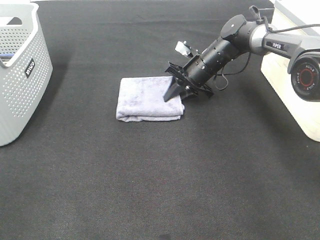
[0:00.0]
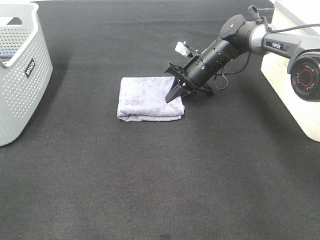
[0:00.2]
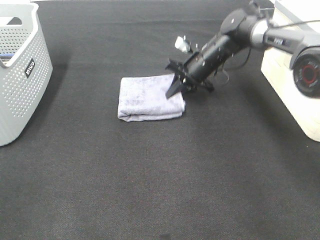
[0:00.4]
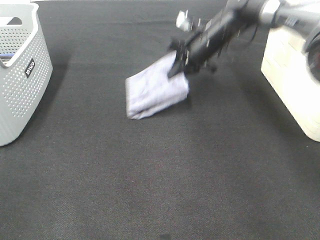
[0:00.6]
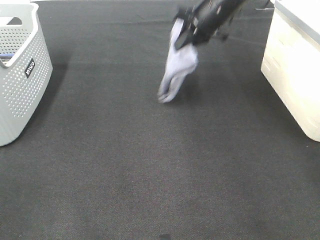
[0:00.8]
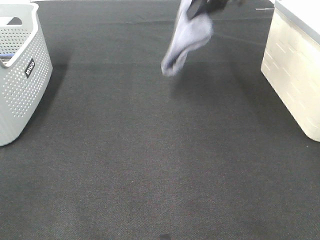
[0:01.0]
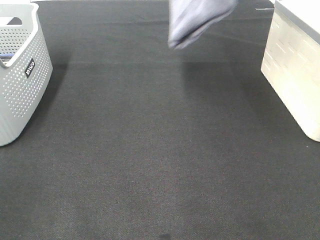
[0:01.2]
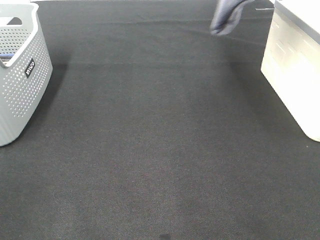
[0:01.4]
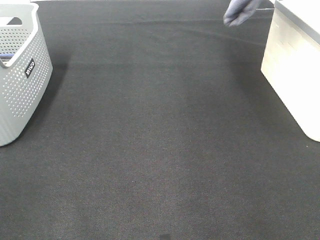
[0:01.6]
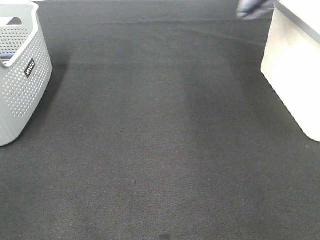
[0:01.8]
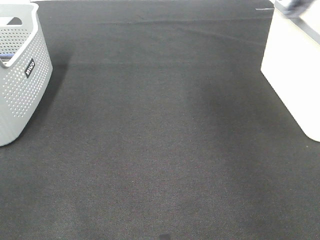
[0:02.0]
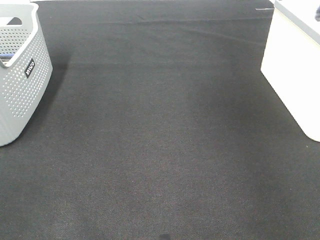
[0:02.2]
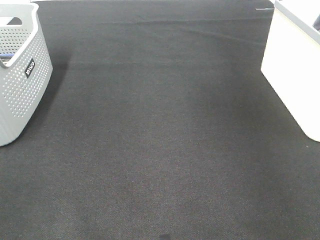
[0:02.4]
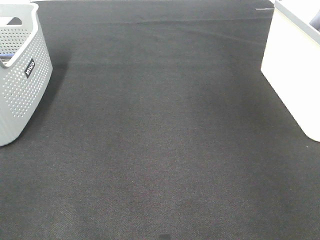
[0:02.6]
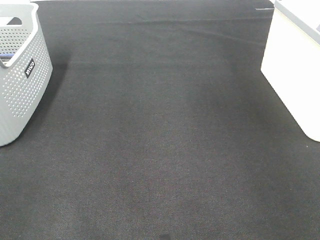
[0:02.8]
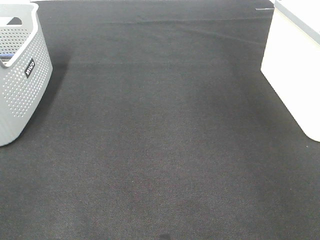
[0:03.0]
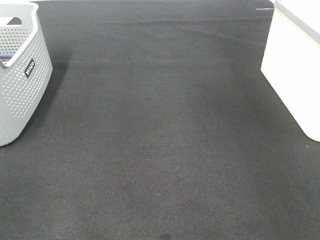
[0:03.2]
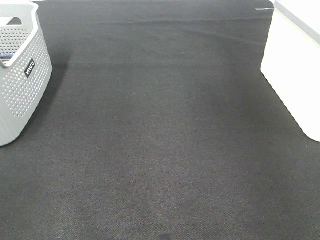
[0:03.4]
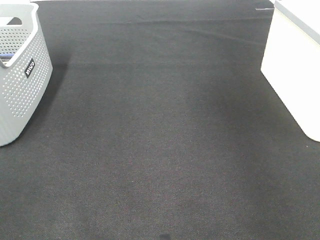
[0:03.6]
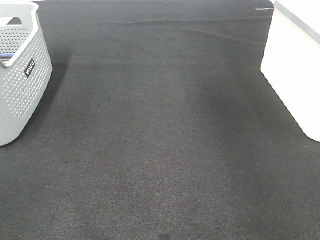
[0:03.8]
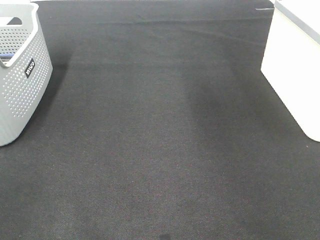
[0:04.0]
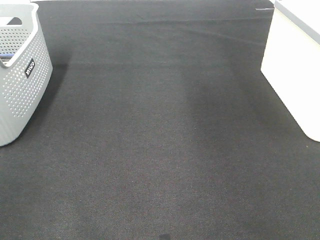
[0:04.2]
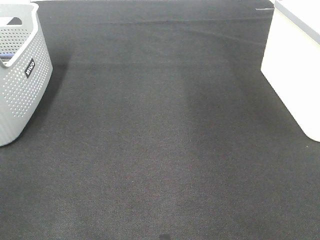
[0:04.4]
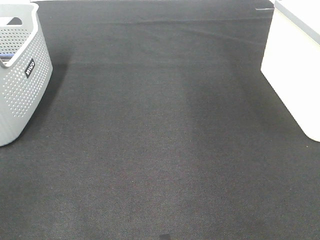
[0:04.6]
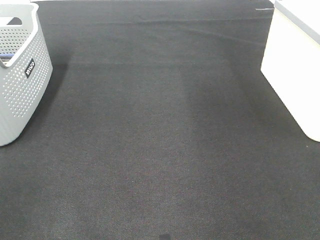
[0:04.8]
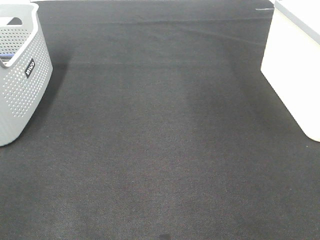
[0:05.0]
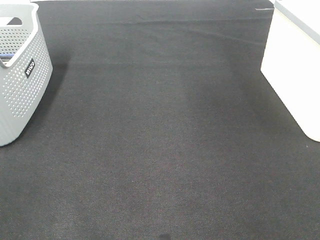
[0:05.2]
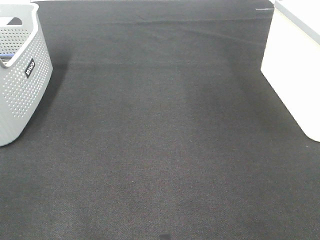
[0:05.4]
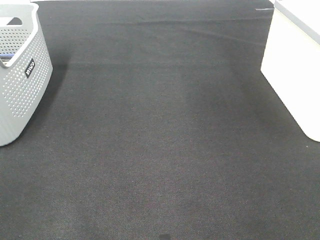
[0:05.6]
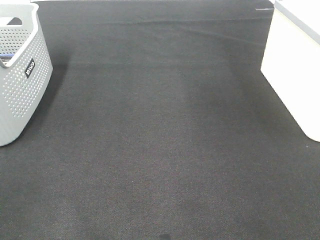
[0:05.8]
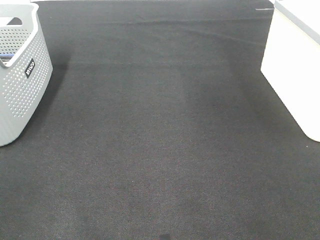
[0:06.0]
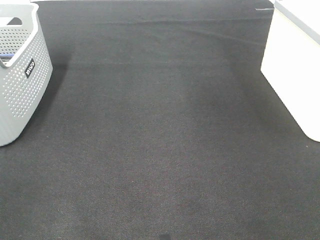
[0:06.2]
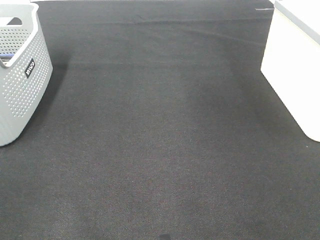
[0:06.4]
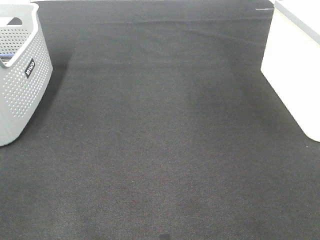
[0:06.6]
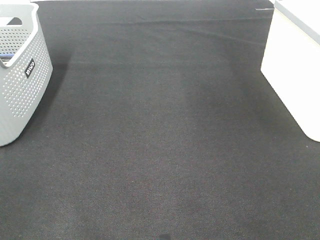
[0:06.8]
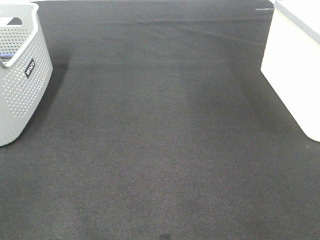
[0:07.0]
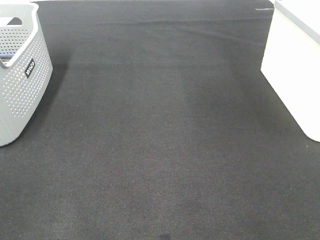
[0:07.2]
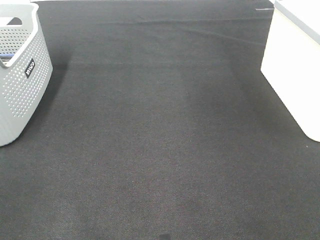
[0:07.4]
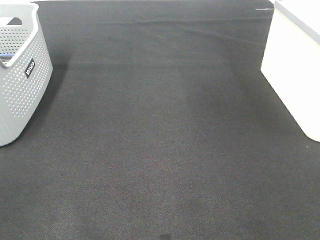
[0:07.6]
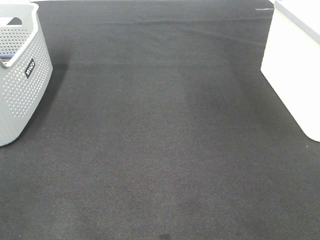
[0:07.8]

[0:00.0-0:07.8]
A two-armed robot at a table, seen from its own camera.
Step, 0.6 to 3.2 s: Right hand: place the grey towel in right basket.
0.0 to 1.6 s: The right gripper shifts some 35 cm upward.
1.6 to 3.2 s: The right gripper shifts roughly 20 cm to the right and downward, and opens.
6.2 to 7.8 s: Neither gripper changes place.

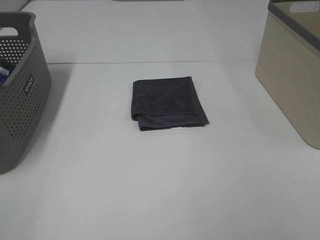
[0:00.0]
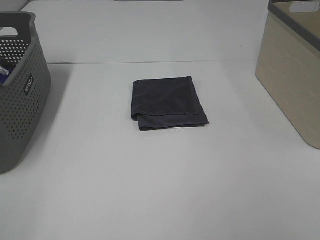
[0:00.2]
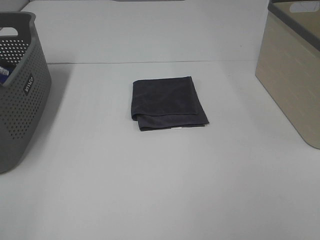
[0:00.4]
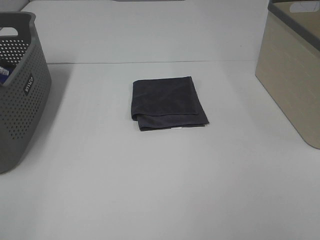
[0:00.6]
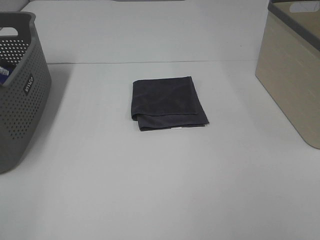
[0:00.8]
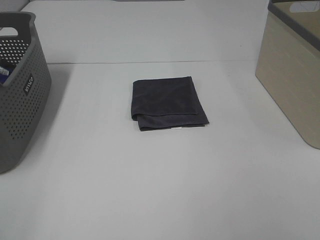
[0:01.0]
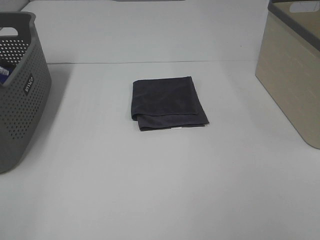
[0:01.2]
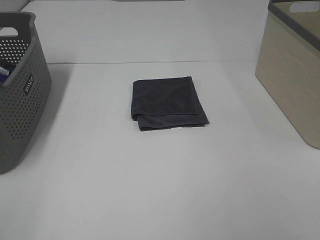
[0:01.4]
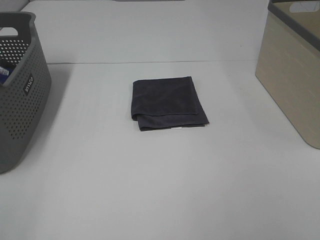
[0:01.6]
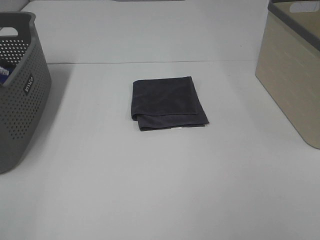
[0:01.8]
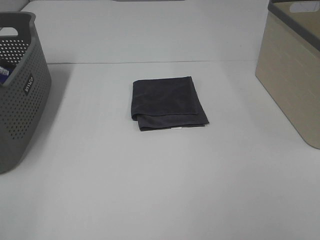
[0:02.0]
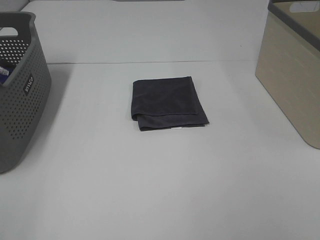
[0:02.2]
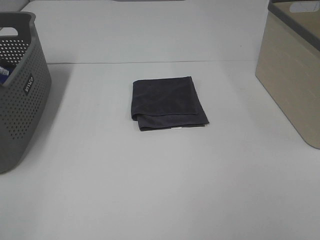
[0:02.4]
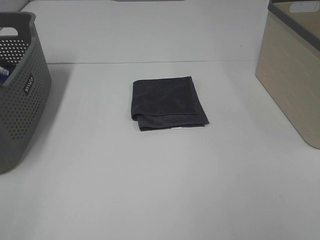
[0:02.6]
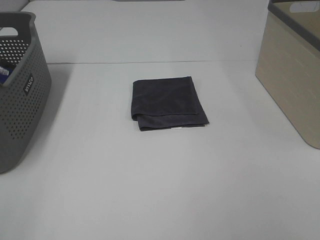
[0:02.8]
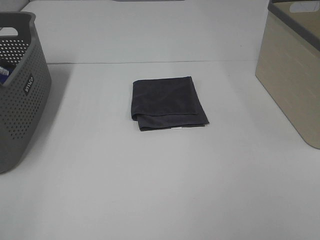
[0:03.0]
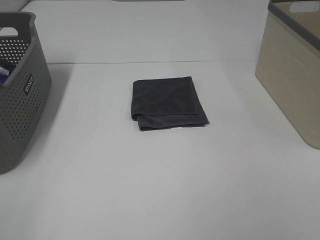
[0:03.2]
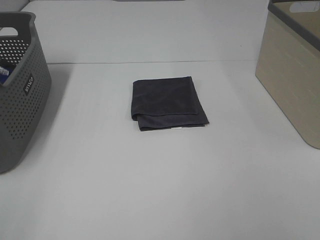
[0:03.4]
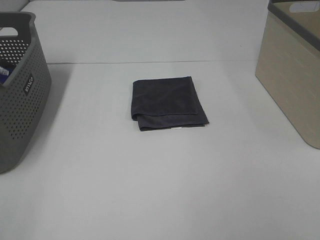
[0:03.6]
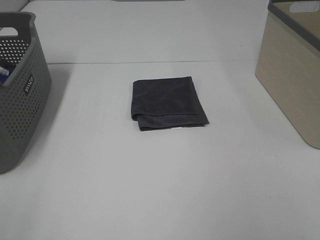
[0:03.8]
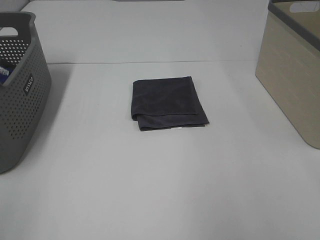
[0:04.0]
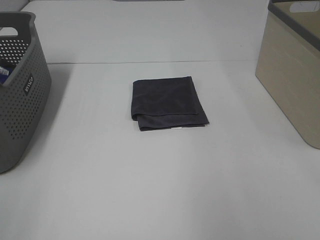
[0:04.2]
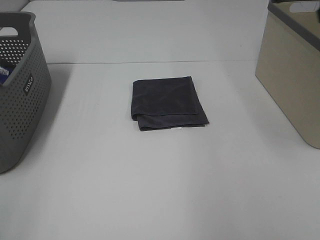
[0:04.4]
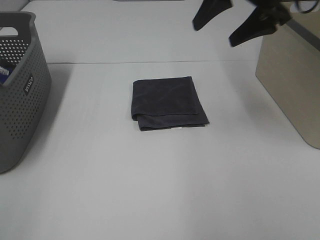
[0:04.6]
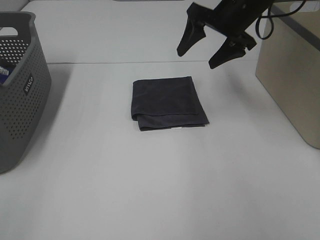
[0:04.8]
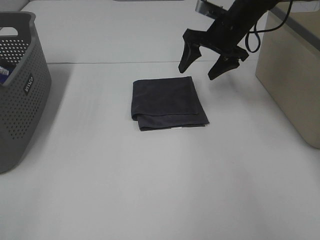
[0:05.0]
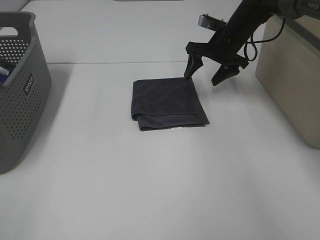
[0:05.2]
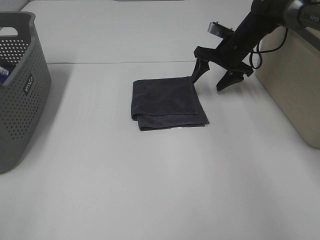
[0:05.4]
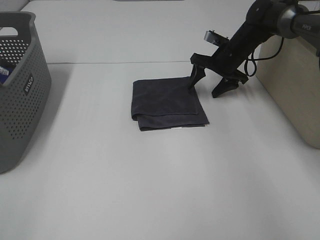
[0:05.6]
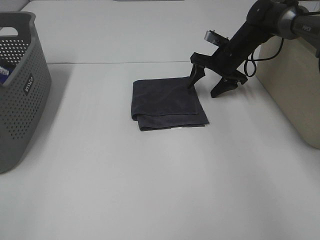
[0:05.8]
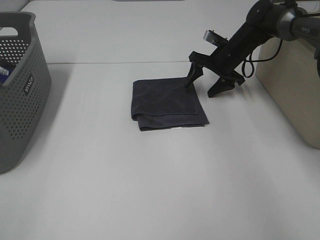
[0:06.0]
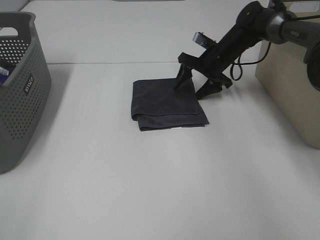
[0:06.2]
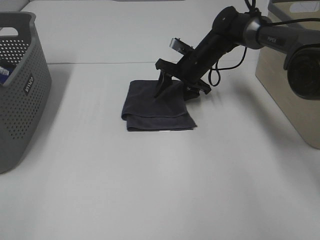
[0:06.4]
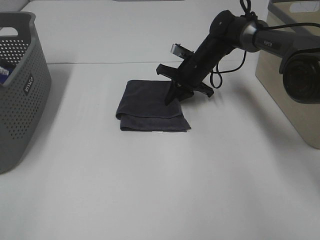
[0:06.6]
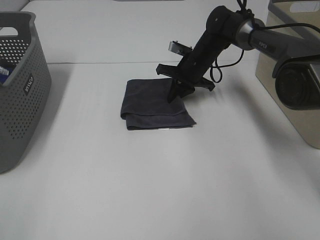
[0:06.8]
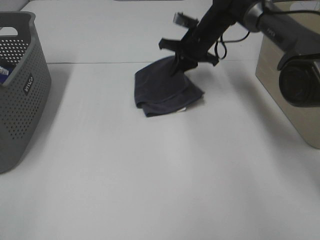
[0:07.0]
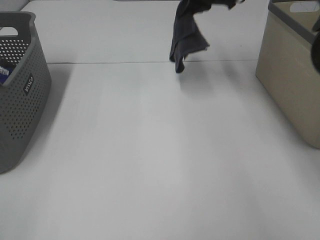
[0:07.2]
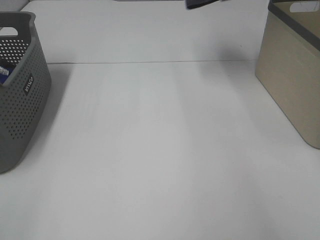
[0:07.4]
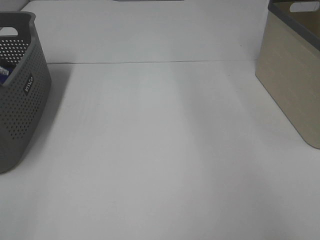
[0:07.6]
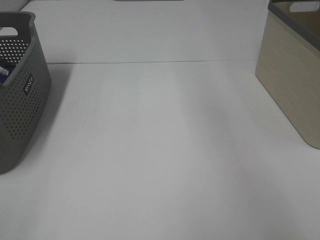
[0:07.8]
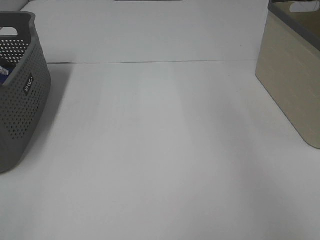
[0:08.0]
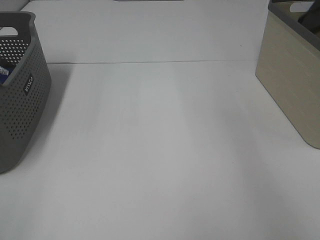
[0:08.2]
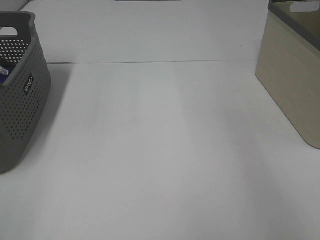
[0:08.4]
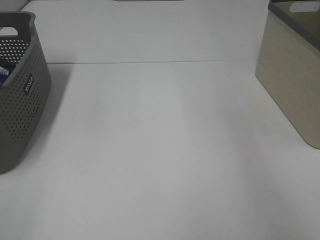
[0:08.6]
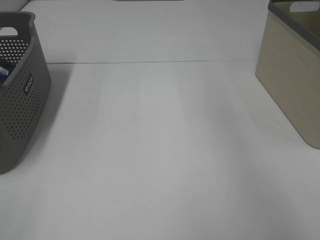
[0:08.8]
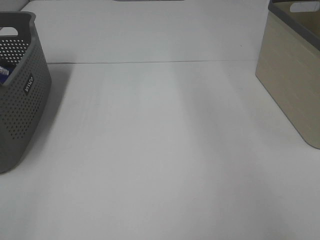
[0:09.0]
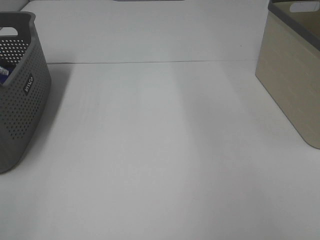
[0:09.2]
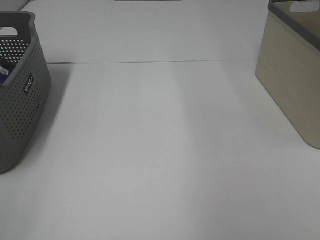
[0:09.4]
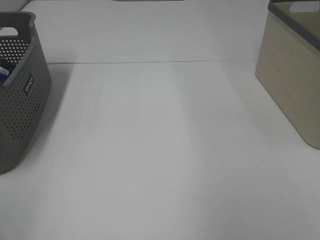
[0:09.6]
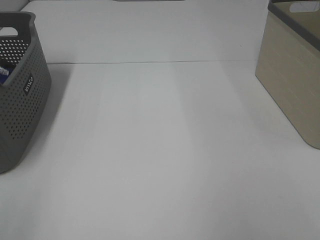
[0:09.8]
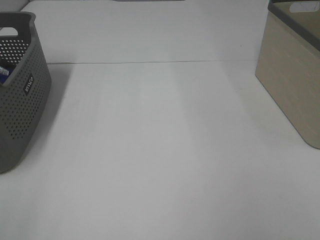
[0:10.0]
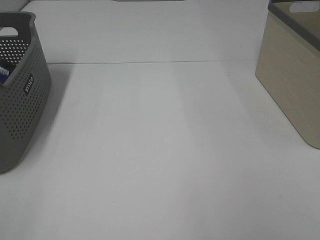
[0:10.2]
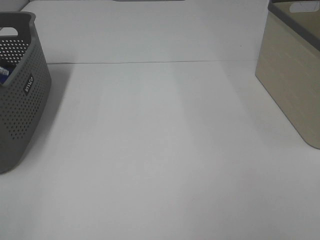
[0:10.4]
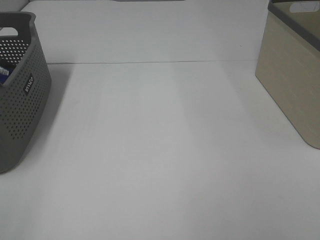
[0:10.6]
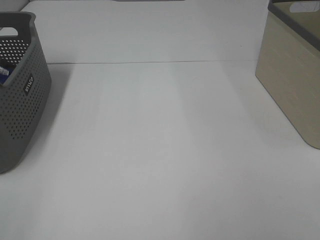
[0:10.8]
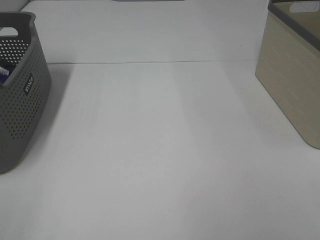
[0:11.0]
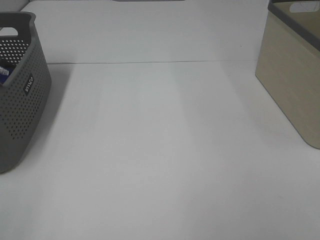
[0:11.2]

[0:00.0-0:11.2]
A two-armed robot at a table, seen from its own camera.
Step, 0.0 to 6.4 s: Right hand: grab the folded grey towel.
Step, 6.6 to 8.4 s: Right hand: place the grey towel in right basket.
0.0 to 3.2 s: Both grippers stay about where they are.
3.2 to 4.8 s: The right gripper heads forward, covering about 40 cm.
4.8 to 6.4 s: The right gripper goes about 15 cm downward.
6.4 to 8.0 s: The right gripper travels upward and to the right by some 40 cm, and closes up.

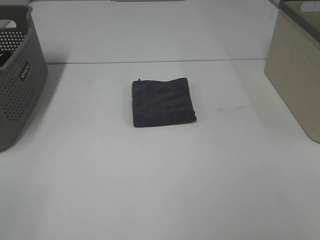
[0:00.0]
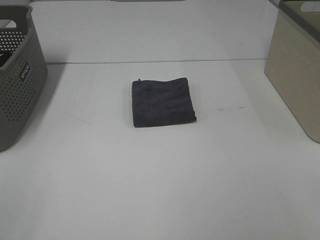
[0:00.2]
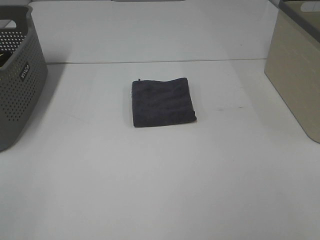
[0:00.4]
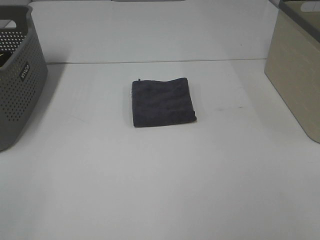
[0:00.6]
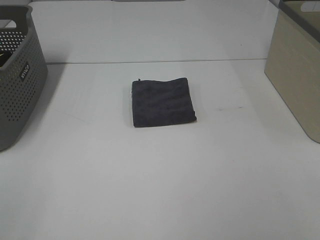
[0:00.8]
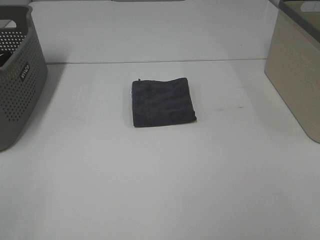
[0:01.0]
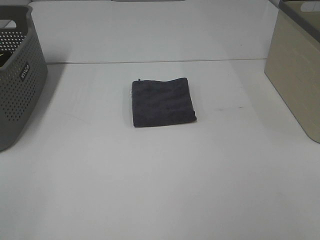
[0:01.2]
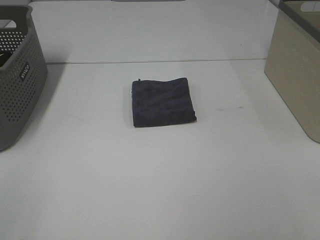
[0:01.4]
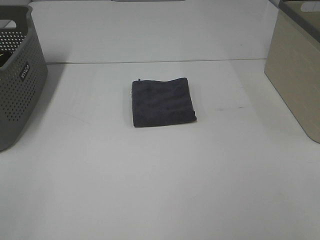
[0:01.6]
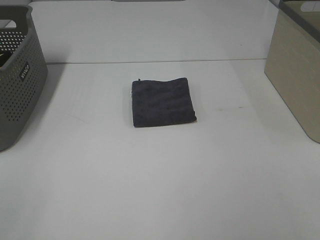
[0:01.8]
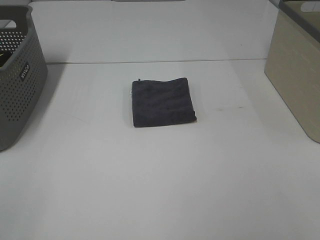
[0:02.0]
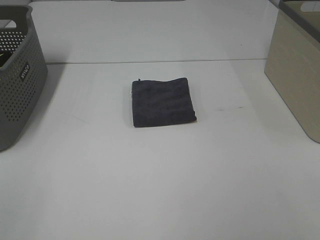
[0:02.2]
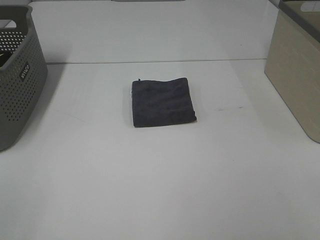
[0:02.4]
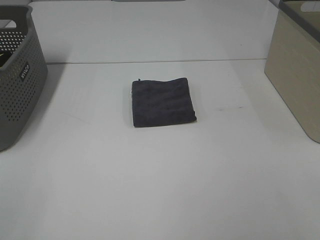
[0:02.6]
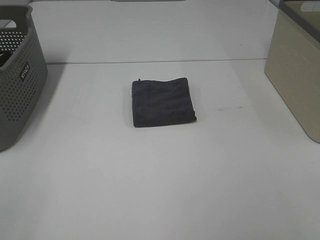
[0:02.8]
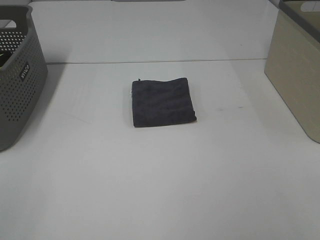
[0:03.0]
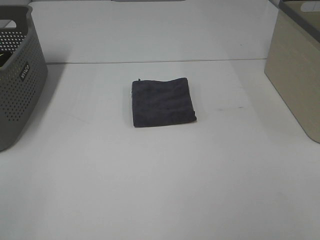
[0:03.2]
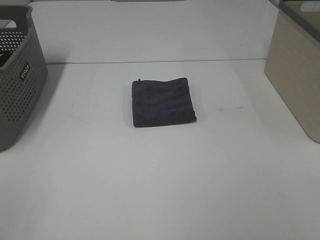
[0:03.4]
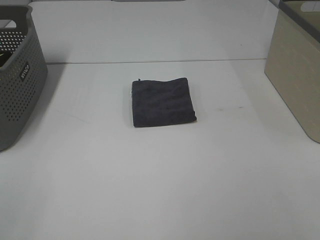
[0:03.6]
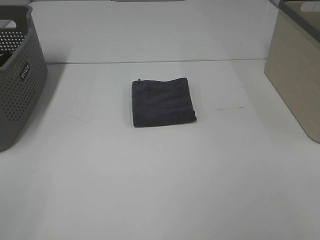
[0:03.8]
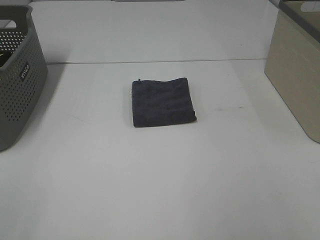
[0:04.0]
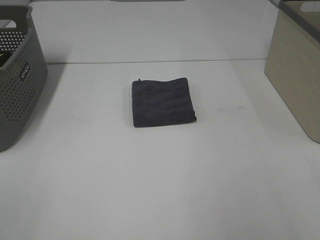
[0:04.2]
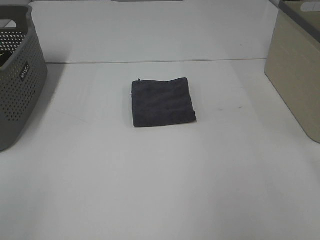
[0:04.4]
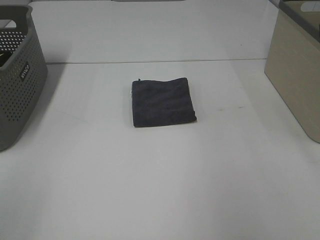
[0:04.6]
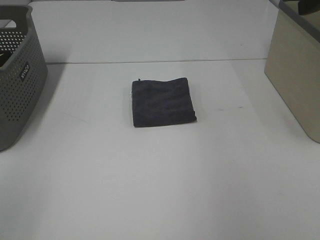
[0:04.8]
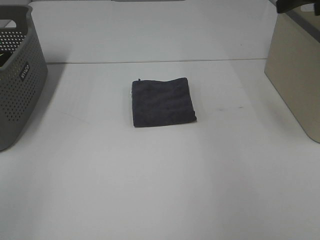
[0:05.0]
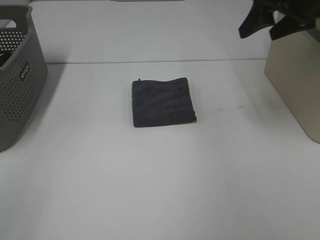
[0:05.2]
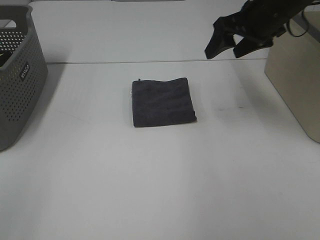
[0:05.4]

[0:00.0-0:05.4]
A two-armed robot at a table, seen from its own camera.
0.0 to 2.8 s: Neither gripper changes place.
4.0 to 5.4 s: The right gripper travels forward by some 35 cm.
